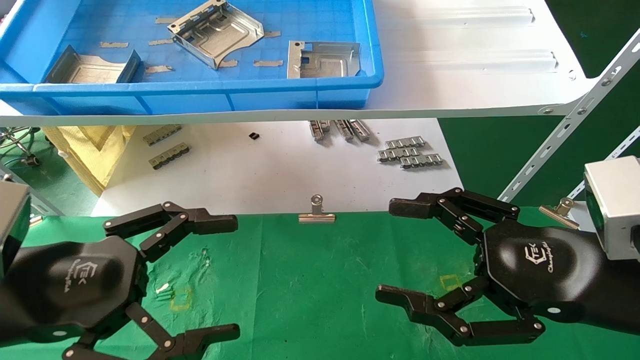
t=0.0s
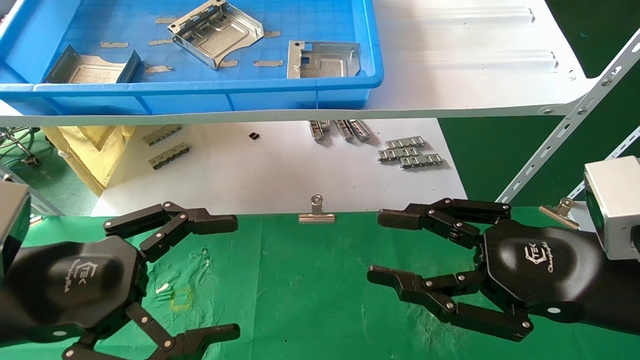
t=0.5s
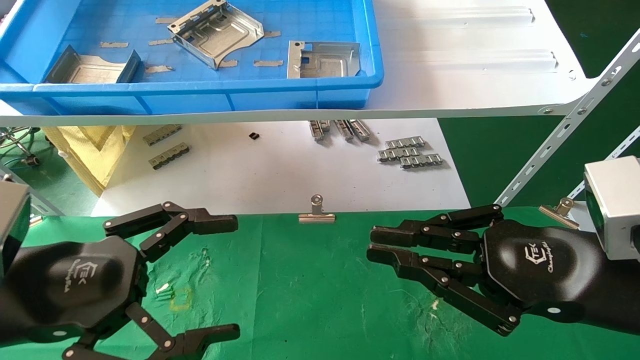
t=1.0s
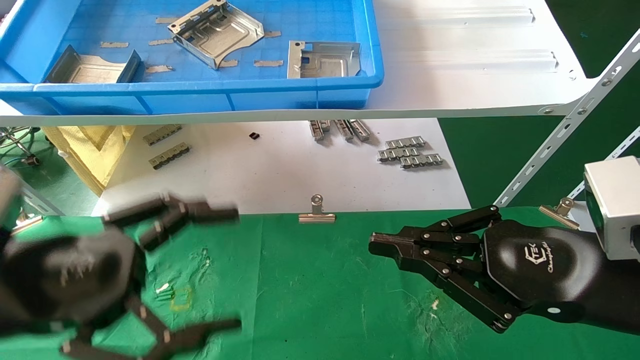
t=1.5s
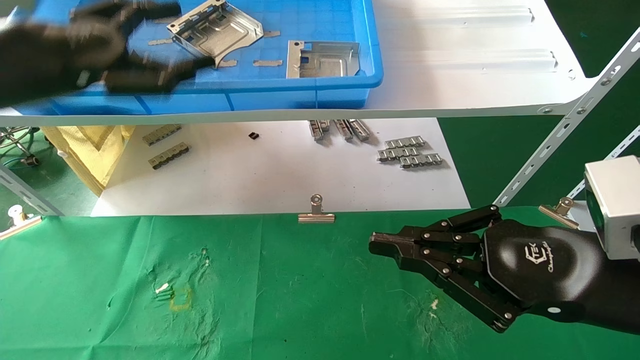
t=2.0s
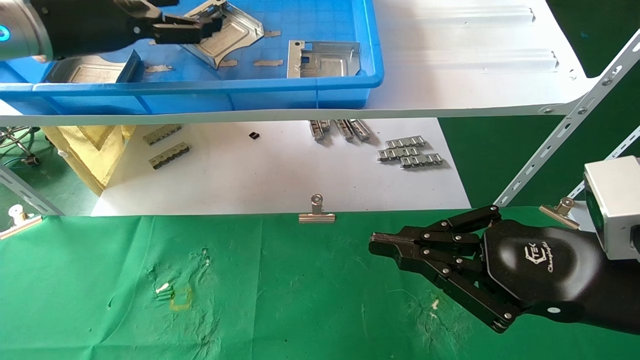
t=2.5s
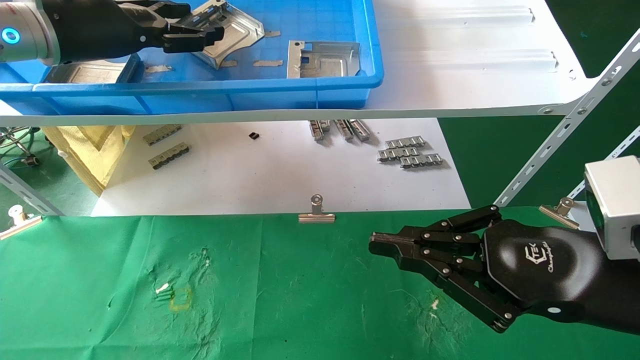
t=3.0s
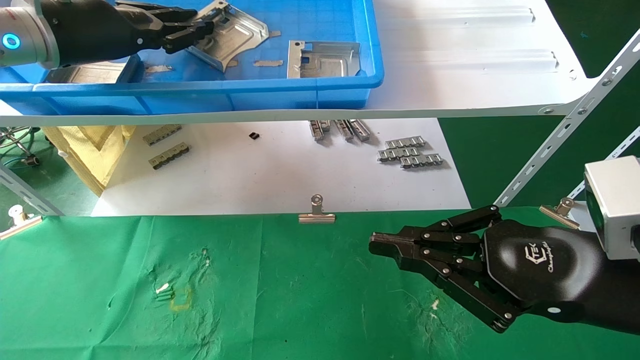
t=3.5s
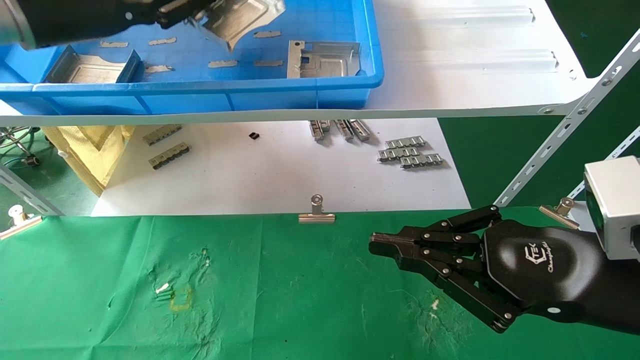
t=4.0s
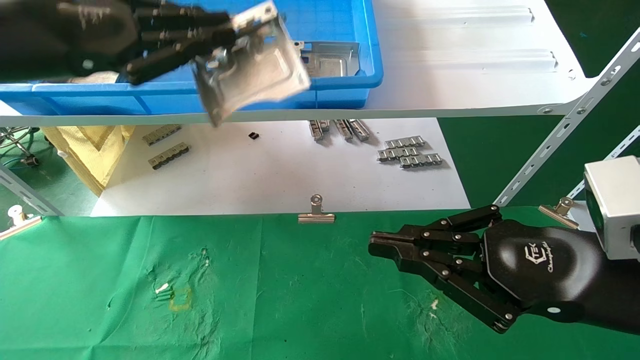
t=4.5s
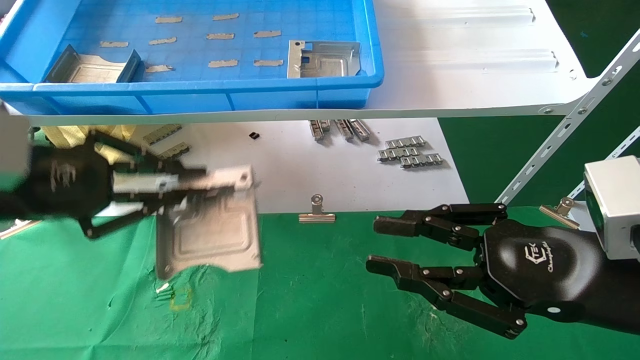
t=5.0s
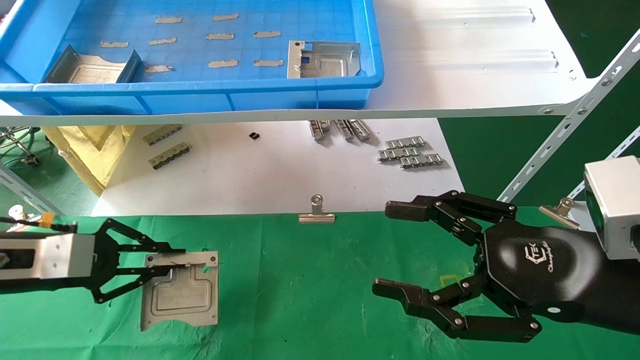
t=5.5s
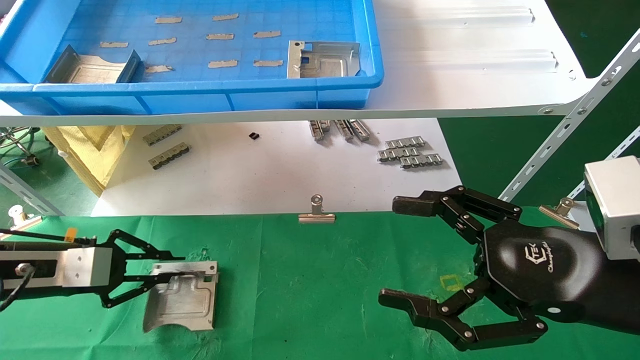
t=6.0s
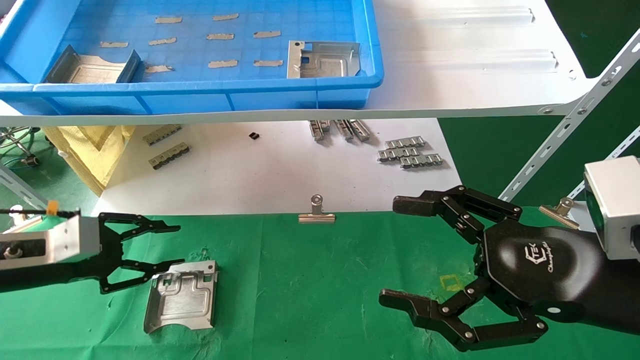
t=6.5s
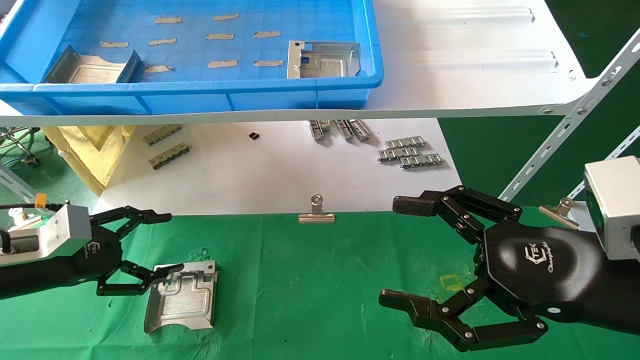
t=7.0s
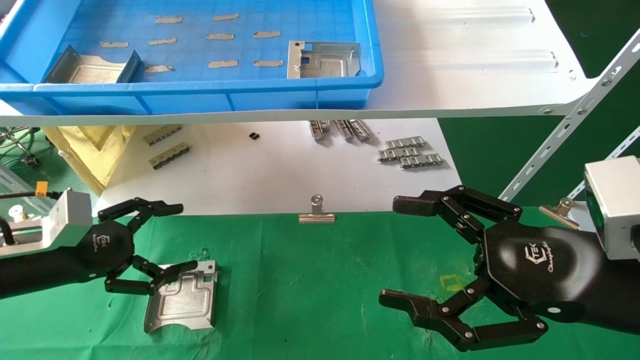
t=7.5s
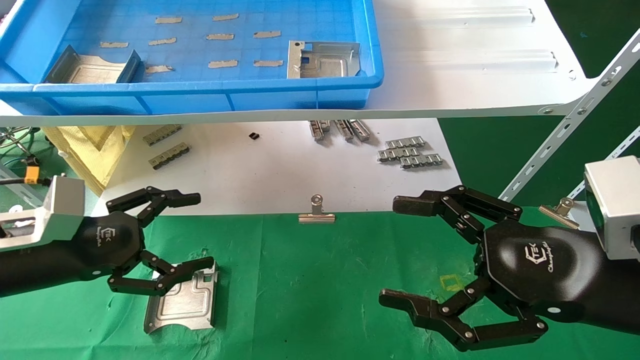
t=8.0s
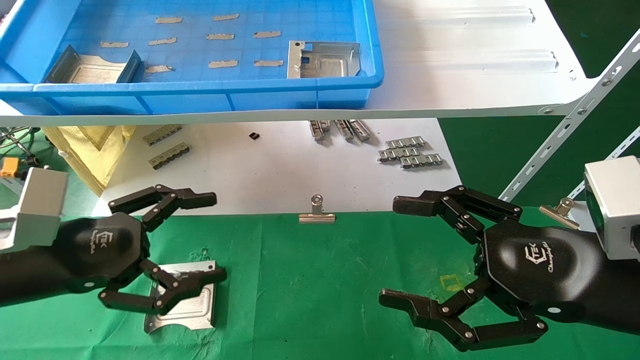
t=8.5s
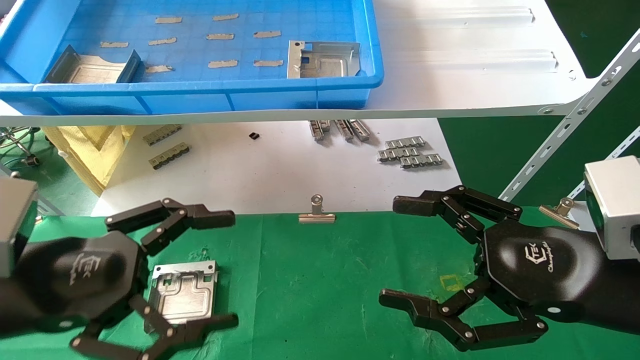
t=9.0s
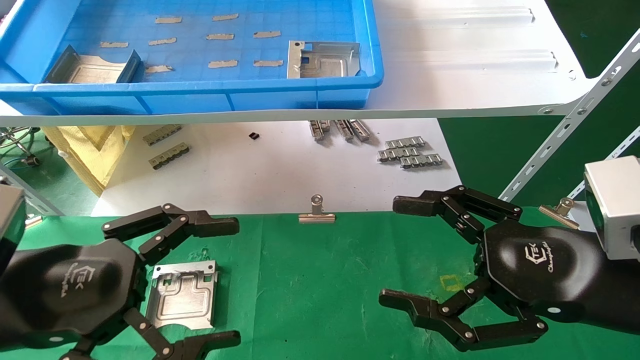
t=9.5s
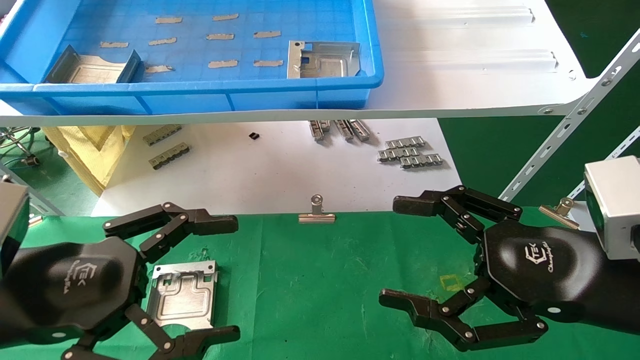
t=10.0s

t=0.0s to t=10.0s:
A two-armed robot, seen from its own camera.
Task of the whole recording: use the mechanical arm to pick up the parts and place them on the table.
Step, t=2.0s to t=3.5s: Pick up the hard drive bracket from the feeding area.
Step, t=4.0s to t=6.0s: Place the hard drive bracket into the box.
t=0.0s to t=2.0s: The left gripper is displaced upward and forward by about 20 cm. Meanwhile the right gripper closes.
t=2.0s to t=4.0s: The left gripper shifts roughly 5 cm upward, and closes its fingers.
t=4.0s to t=6.0s: The left gripper is displaced downward by approximately 25 cm; the right gripper opens up.
t=6.0s to t=8.0s: The left gripper goes roughly 5 cm to the right, and opens up.
t=8.0s to t=10.0s: The left gripper goes some 10 cm backward and to the right.

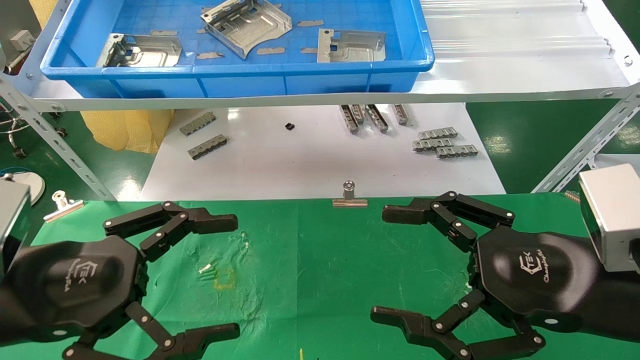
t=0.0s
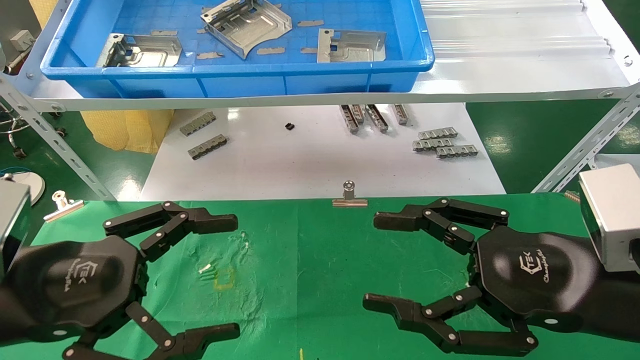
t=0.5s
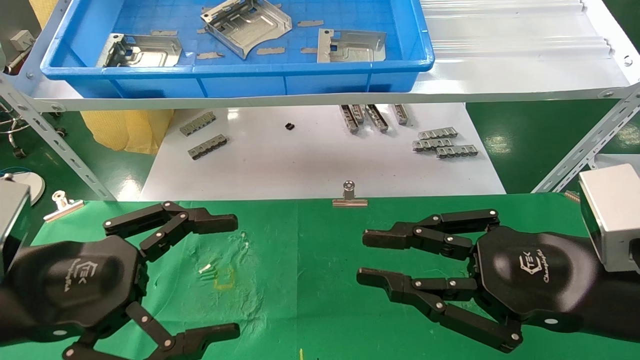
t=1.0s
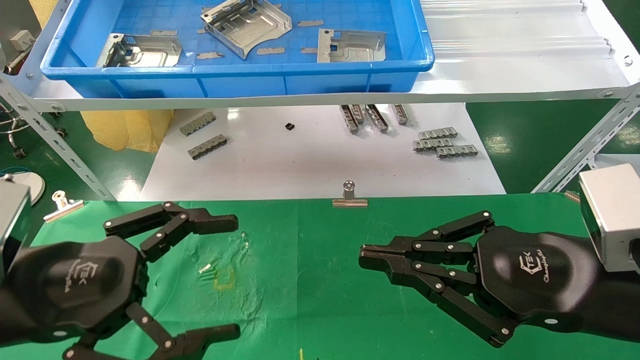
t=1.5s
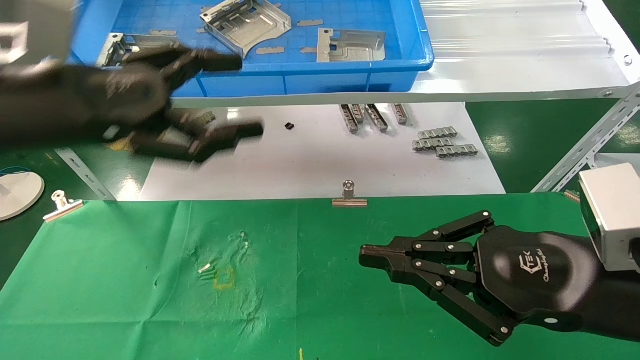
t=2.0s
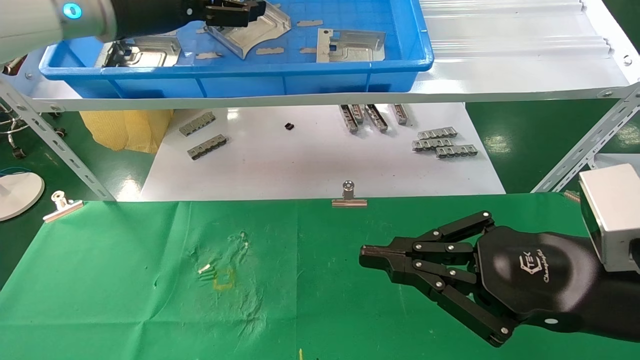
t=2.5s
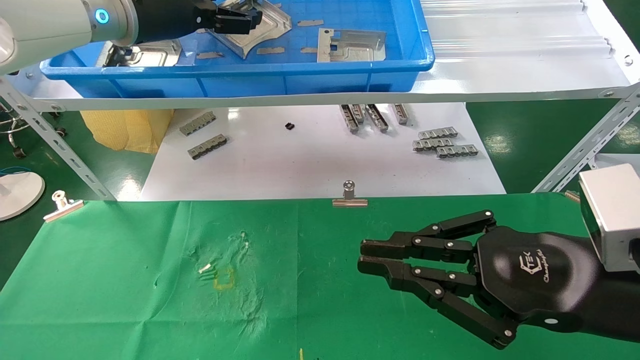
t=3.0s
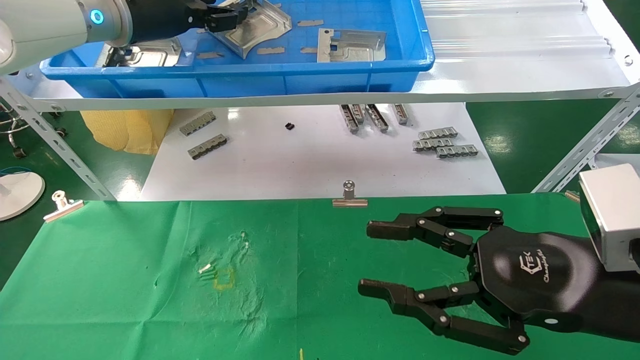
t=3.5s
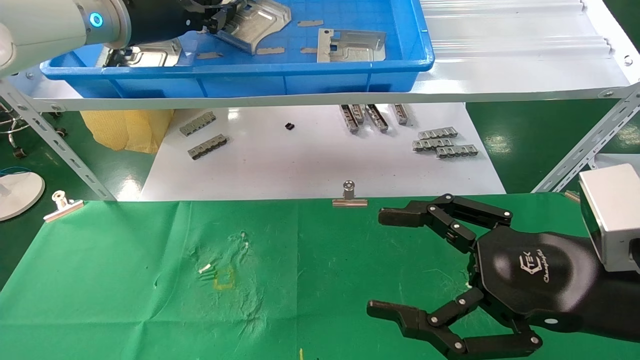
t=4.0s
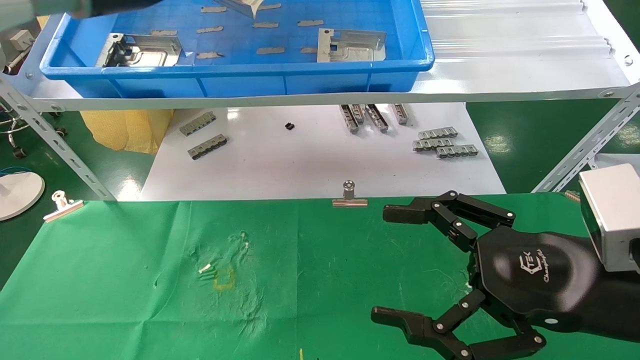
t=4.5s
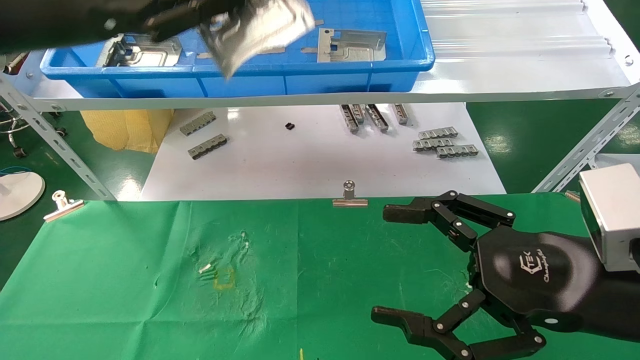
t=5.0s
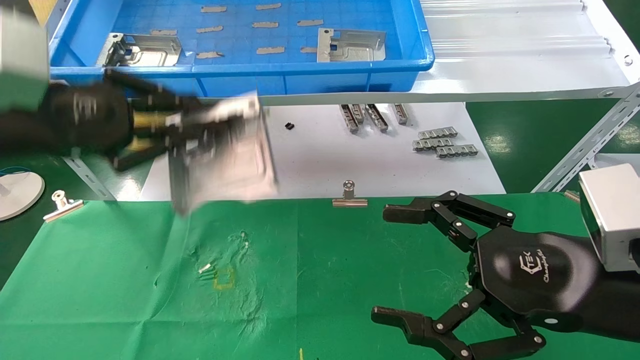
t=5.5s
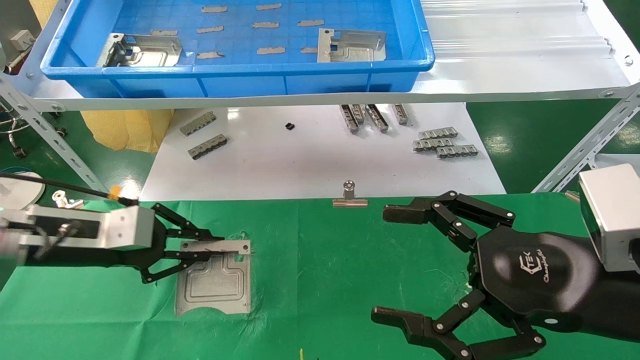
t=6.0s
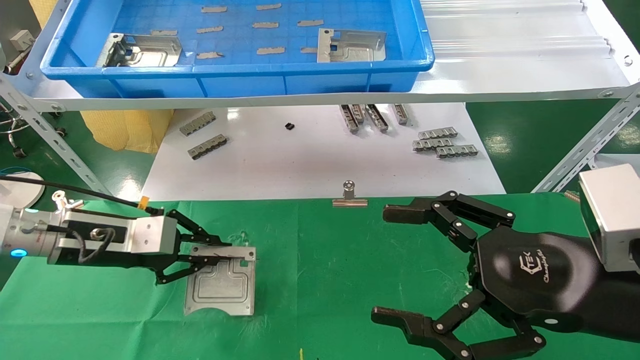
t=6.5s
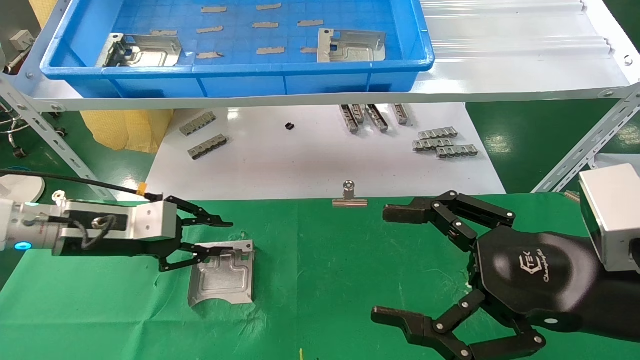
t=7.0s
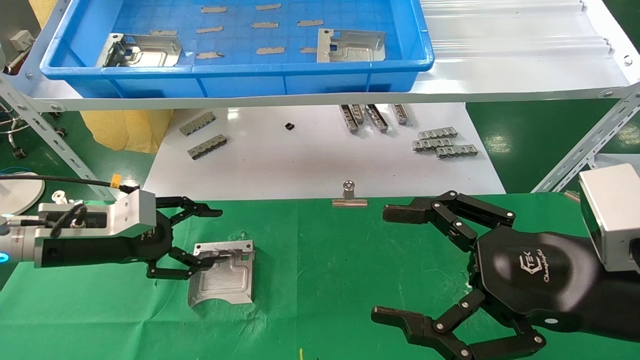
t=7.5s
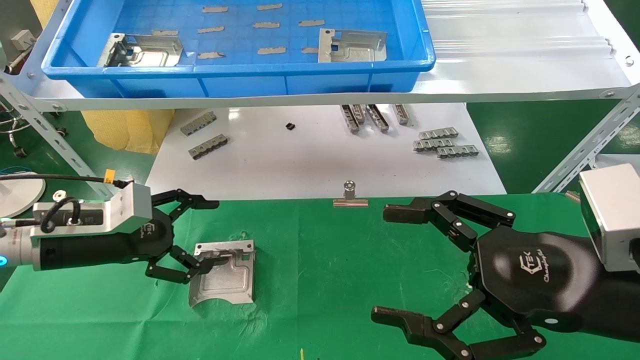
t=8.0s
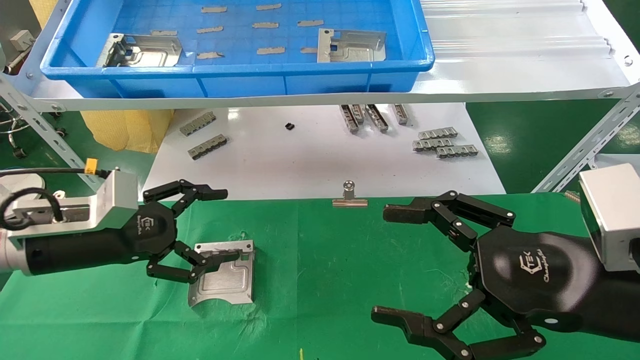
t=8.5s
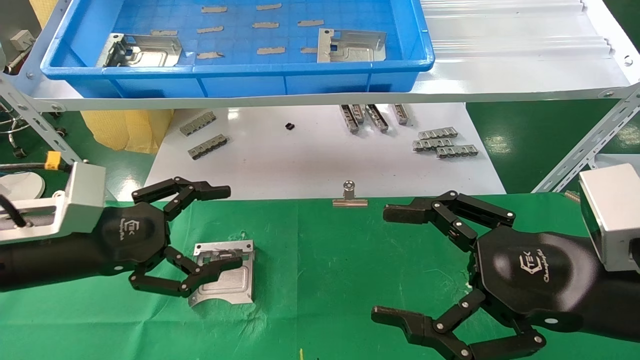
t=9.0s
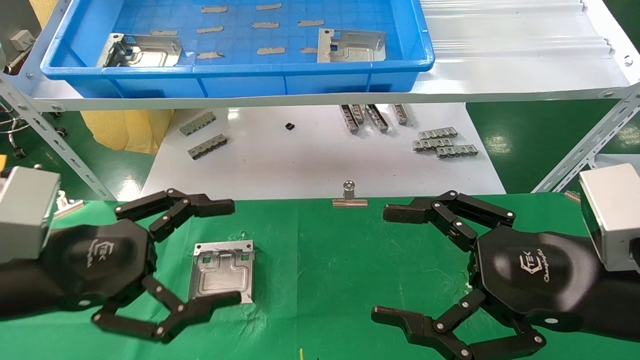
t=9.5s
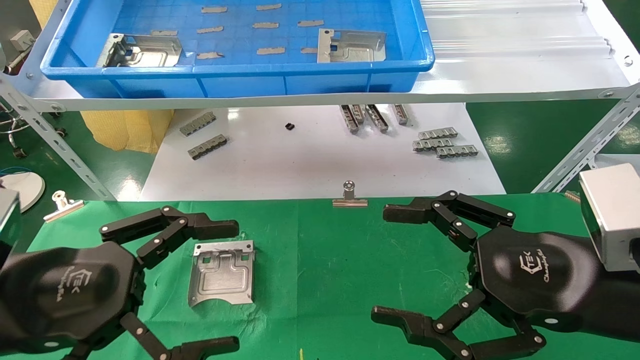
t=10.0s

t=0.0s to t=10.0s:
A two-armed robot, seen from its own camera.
Task of the whole recording: use the mechanical arm to pick up the parts and place them on the table.
Step, t=2.0s to t=4.0s: Pick up the hard drive bracket from the feeding area.
Step, t=4.5s to t=7.0s: Place the hard drive bracket into the box.
t=0.0s to t=2.0s: The left gripper moves upward and forward, some 15 cm, while the right gripper closes.
t=2.0s to t=4.0s: The left gripper travels forward and upward by roughly 20 cm, and closes; the right gripper opens up.
t=4.0s to t=6.0s: The left gripper goes approximately 25 cm downward and backward.
t=6.0s to t=8.0s: The left gripper opens up.
t=8.0s to t=10.0s: The left gripper travels backward by approximately 15 cm.
